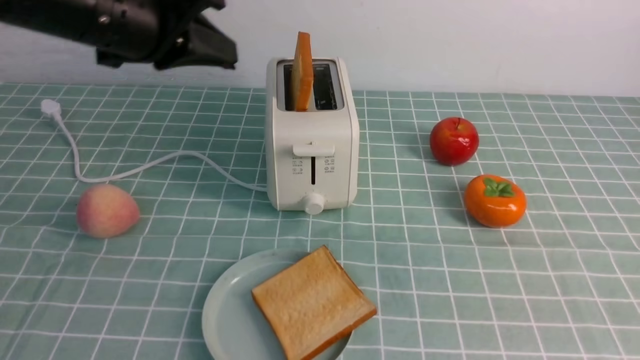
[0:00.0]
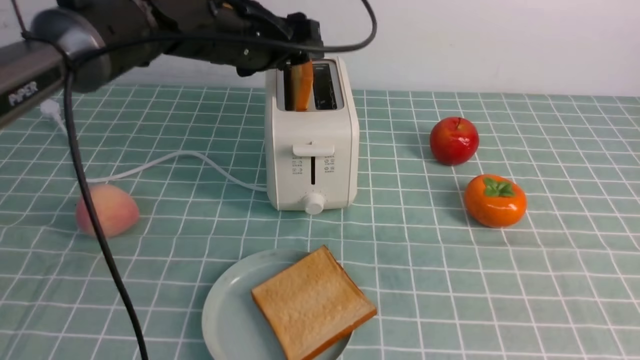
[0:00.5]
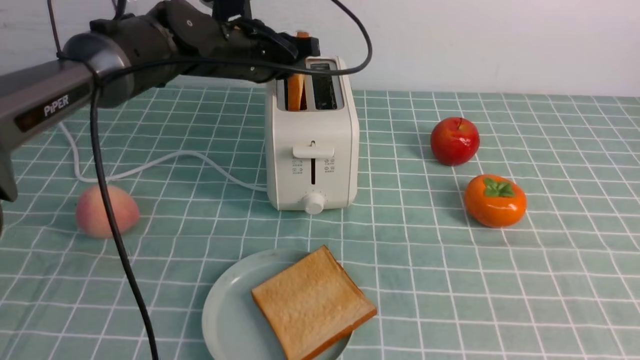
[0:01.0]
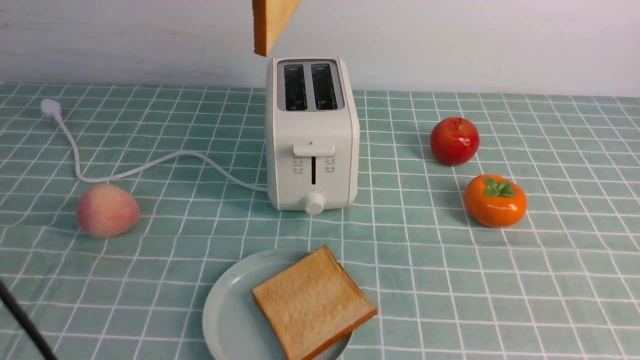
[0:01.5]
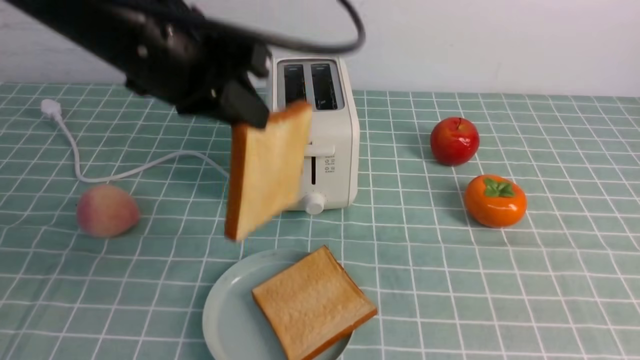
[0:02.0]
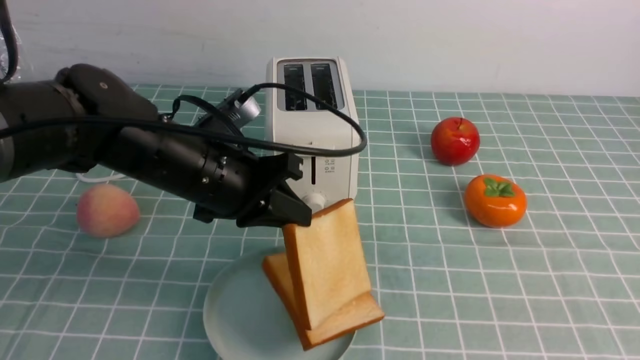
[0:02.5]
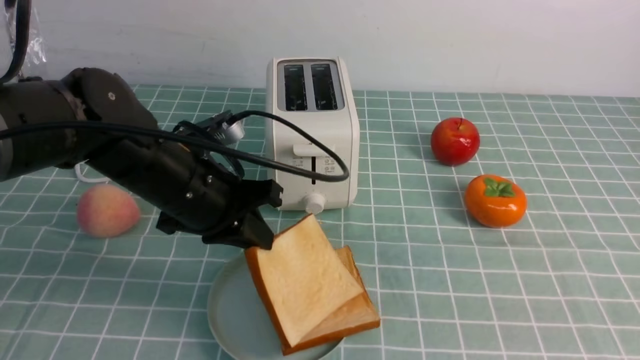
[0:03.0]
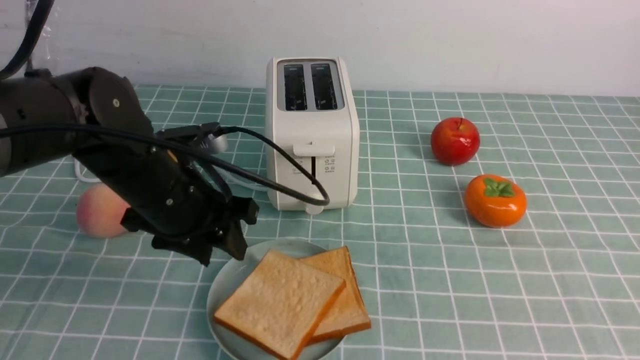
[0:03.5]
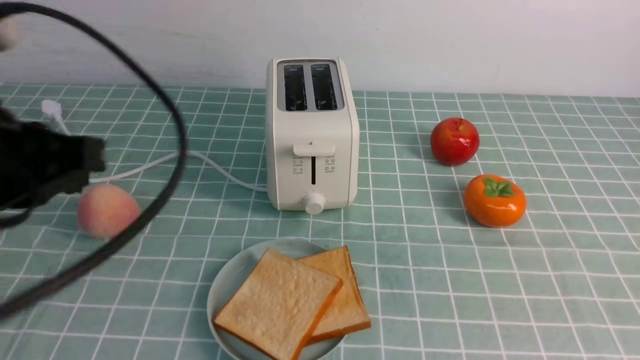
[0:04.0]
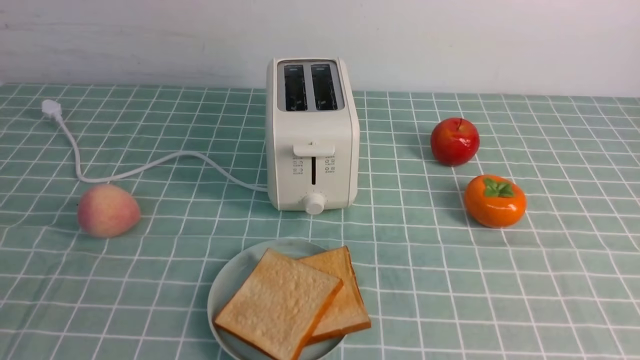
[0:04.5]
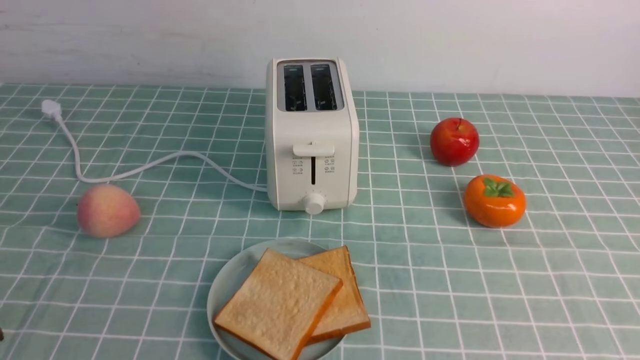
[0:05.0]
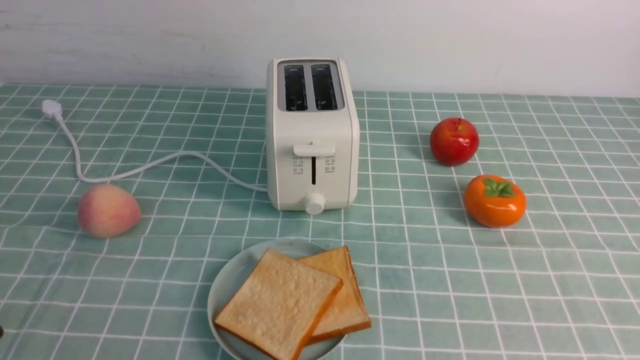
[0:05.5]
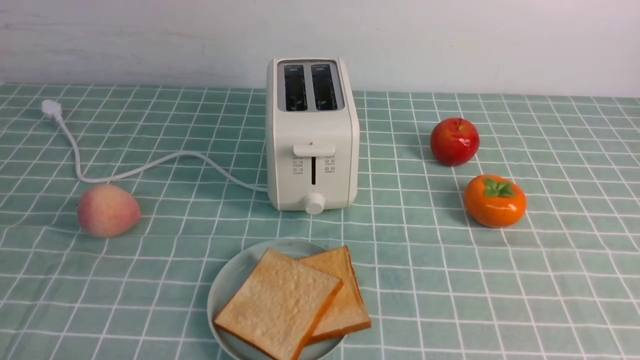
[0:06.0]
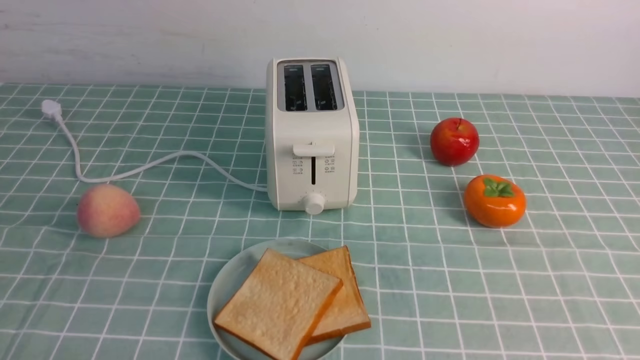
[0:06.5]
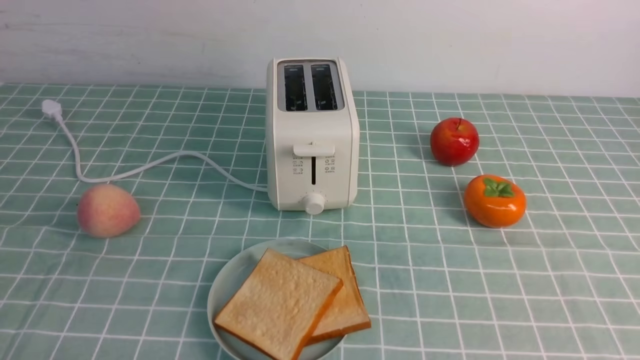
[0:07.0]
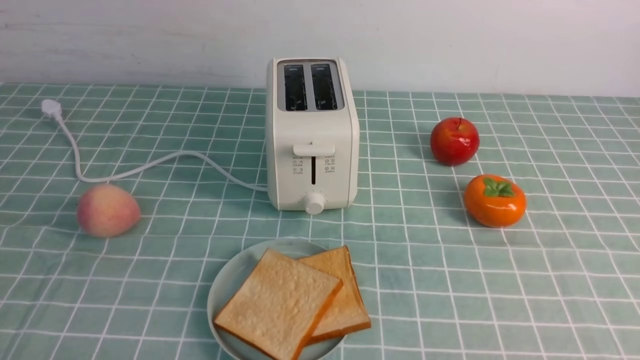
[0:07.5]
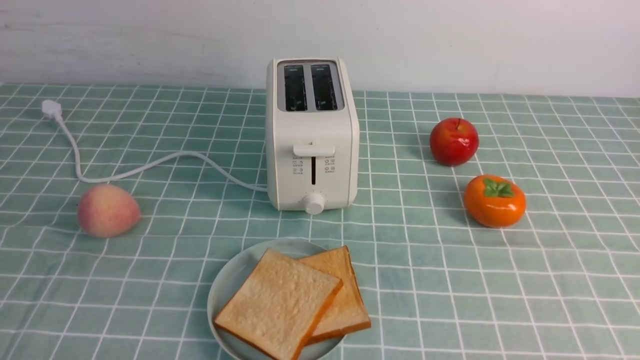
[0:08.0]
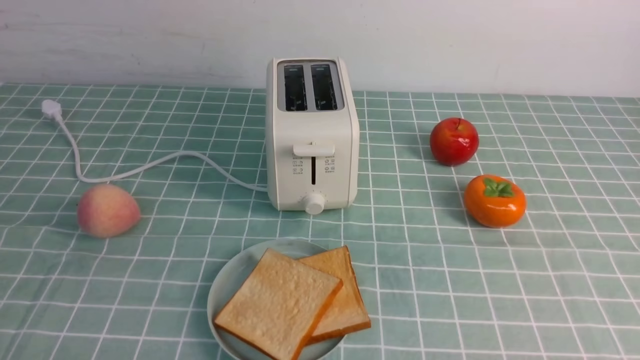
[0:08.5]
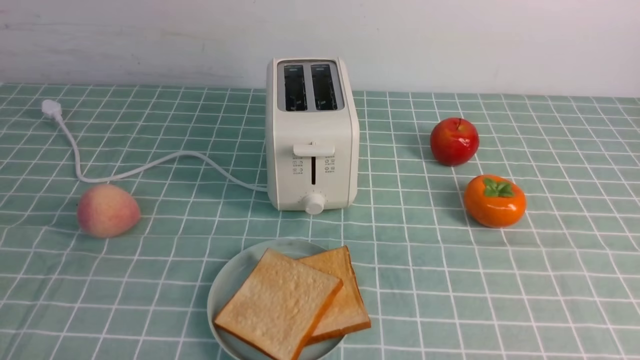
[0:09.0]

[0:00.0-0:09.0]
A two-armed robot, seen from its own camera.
Task of the whole recording: take toasted bread from bread machine on blue coffee table place on plate.
Step, 0:01.5 to 0:03.5: use the left arm to put a slice of bread into the empty plate.
0:00.0 to 0:02.0: The left gripper moves some 10 cm forward and comes back, and opens, then closes again.
0:02.0 to 0:04.5: The left gripper shifts roughly 30 cm backward and to the left, and opens and closes again; the right gripper is displaced backward by some 5 cm.
